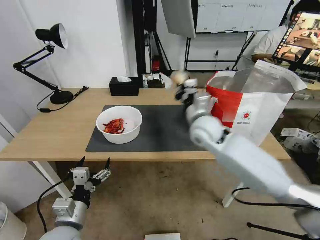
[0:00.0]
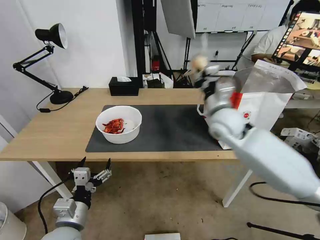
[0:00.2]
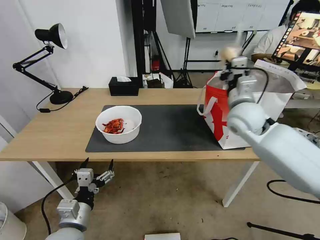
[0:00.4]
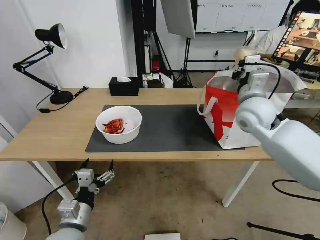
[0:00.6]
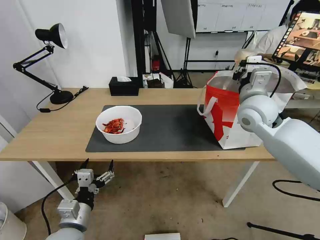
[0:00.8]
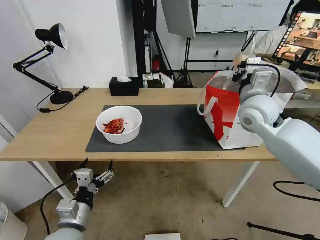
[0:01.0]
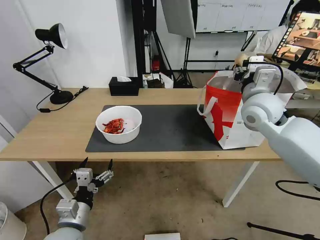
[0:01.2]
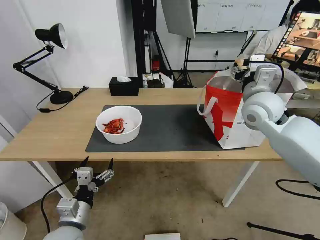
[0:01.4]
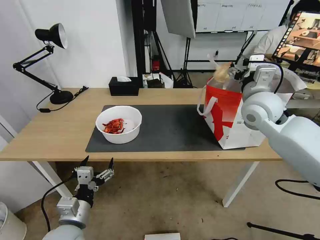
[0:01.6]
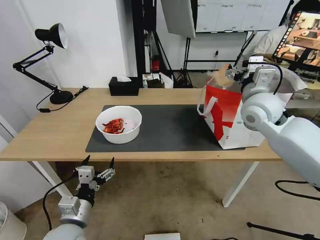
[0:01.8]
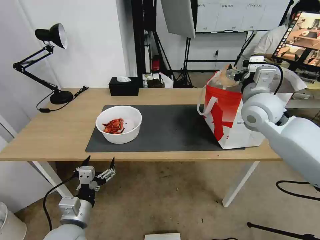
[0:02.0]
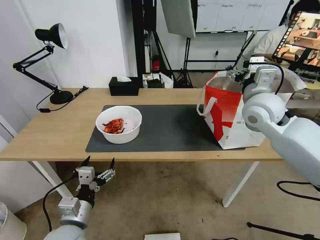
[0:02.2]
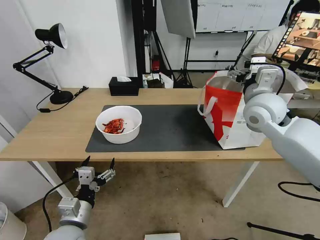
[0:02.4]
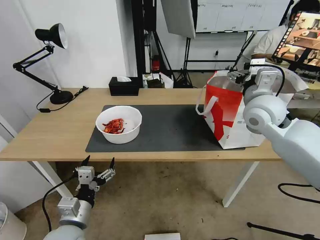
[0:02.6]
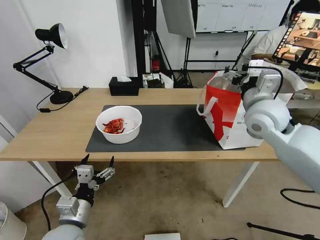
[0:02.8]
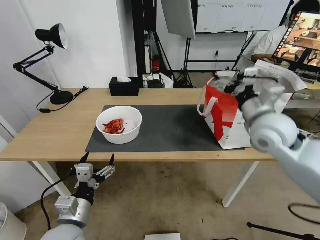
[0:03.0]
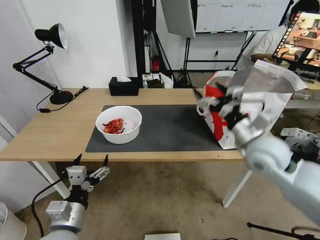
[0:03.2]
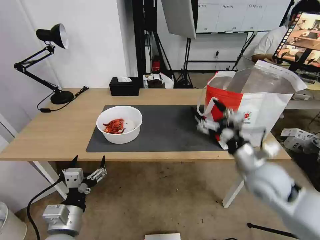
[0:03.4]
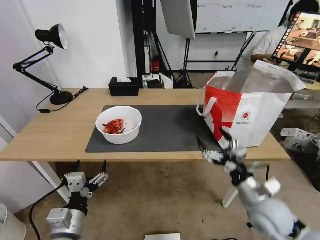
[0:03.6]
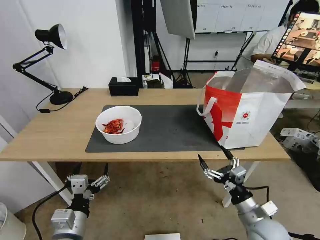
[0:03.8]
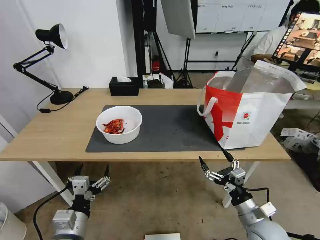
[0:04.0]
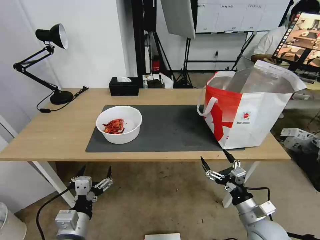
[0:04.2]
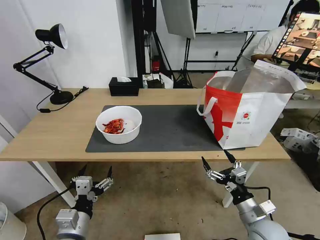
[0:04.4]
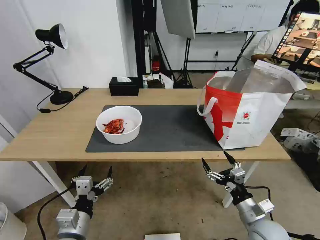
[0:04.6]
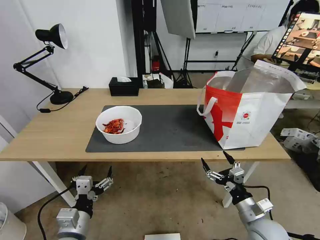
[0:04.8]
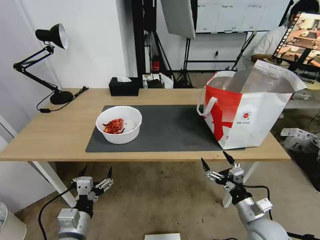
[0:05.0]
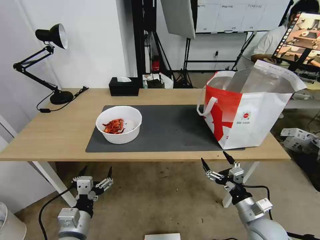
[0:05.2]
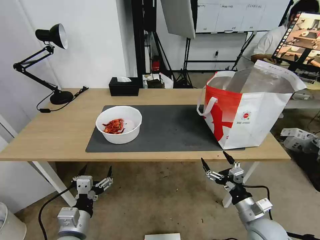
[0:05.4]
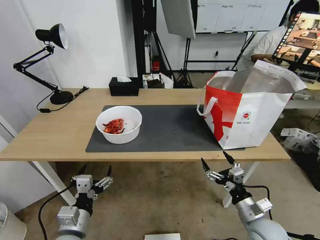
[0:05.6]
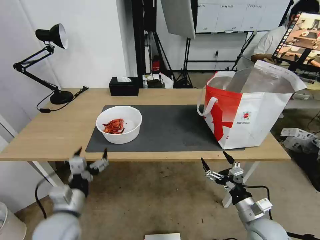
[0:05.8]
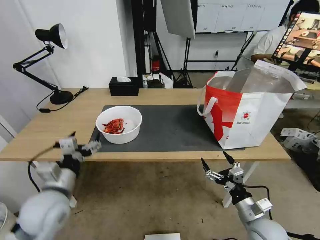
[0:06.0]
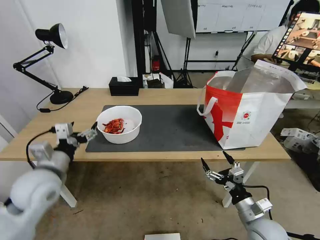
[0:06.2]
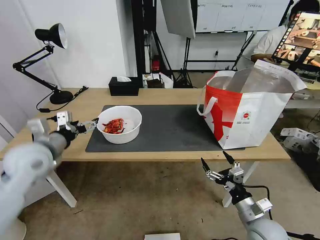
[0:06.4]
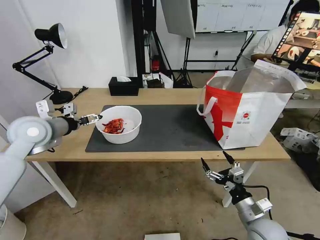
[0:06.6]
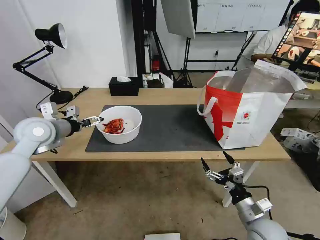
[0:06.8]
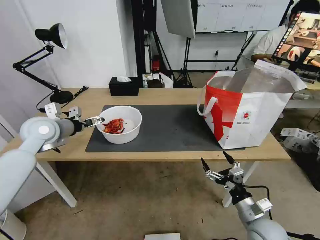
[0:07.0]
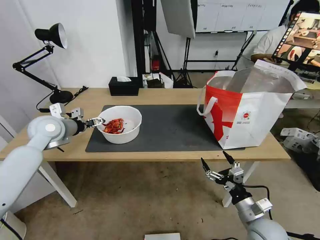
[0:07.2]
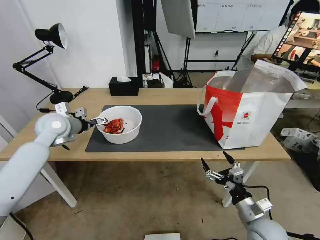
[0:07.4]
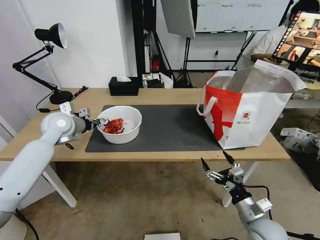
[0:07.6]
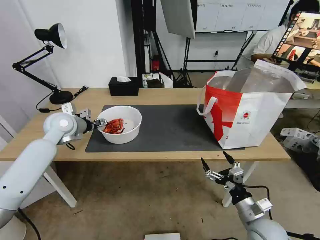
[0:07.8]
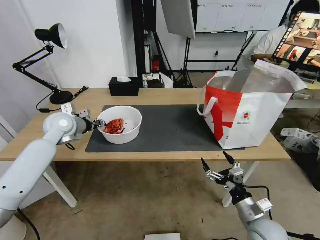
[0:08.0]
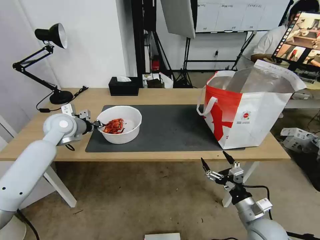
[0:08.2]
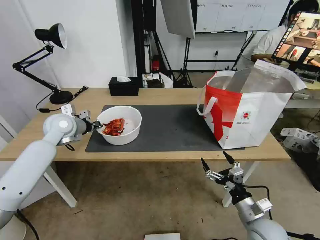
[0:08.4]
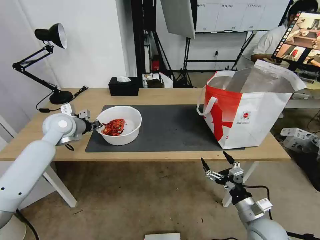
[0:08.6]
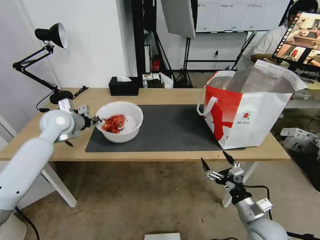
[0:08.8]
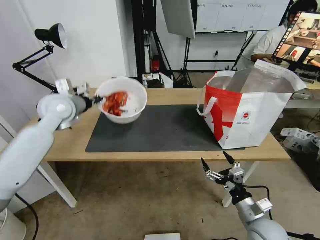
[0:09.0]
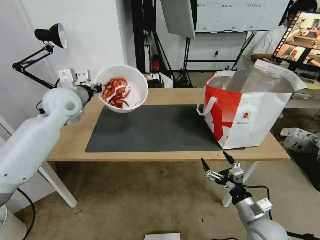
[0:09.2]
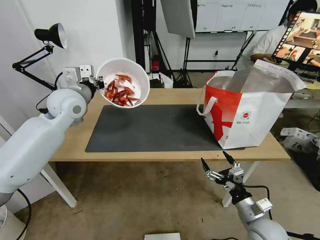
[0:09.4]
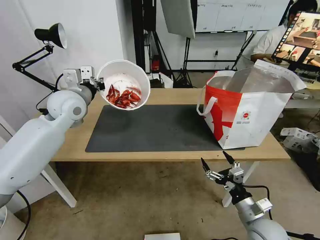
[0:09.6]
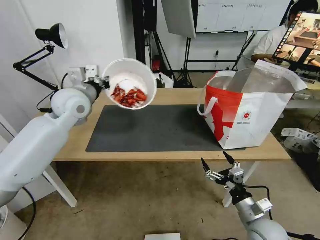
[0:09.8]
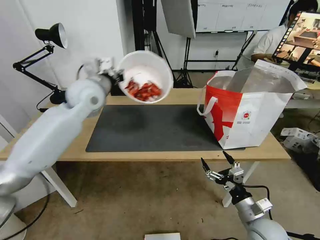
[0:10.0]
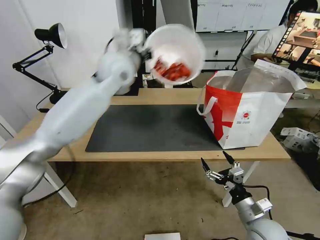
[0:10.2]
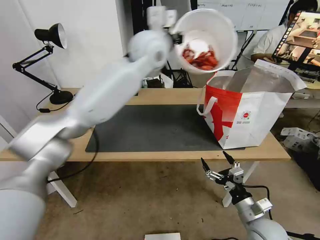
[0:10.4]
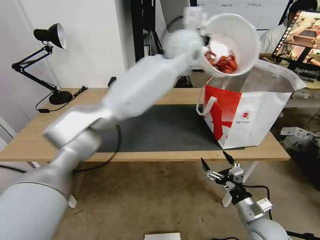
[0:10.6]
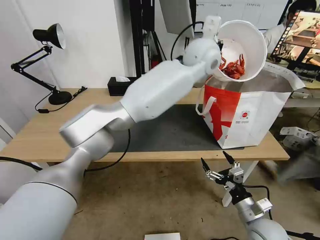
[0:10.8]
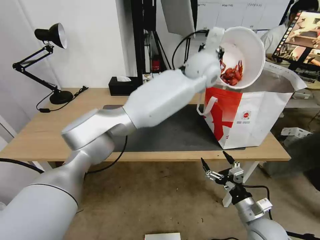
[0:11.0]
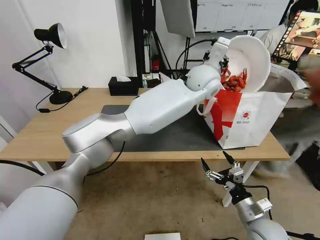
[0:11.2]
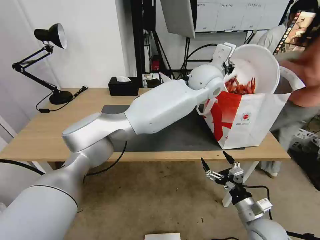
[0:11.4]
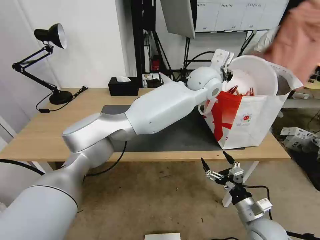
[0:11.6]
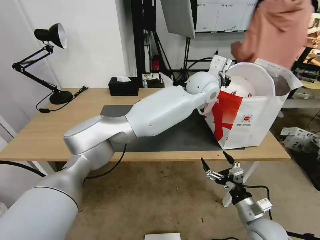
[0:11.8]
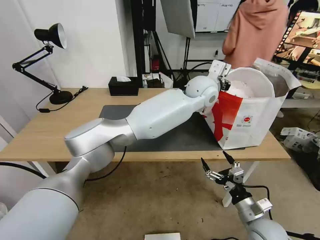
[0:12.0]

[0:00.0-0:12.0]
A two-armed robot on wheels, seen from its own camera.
Task of the whole recording: Pick up the trash from the table and place it into the takeout bag.
0:00.0 to 0:01.6: The right gripper is displaced to the right and upward by approximately 15 cm, and opens.
0:01.6 to 0:03.0: The right gripper moves backward, roughly 5 cm.
0:03.0 to 0:04.4: The right gripper shifts approximately 30 cm downward and backward.
0:04.4 to 0:06.0: The left gripper heads forward and upward, covering roughly 10 cm.
0:06.0 to 0:07.6: The left gripper goes approximately 25 cm forward.
0:07.6 to 0:09.0: The left gripper is displaced upward by some 5 cm, and closes its fingers.
0:09.0 to 0:10.4: The left gripper goes about 30 cm to the right and upward.
0:10.4 to 0:12.0: The left gripper travels to the right and downward by about 20 cm.

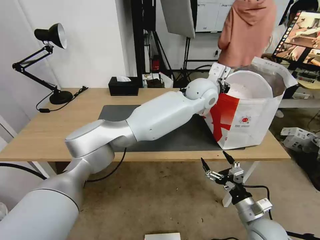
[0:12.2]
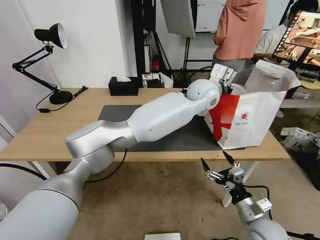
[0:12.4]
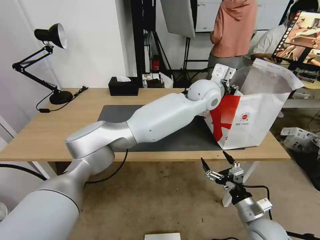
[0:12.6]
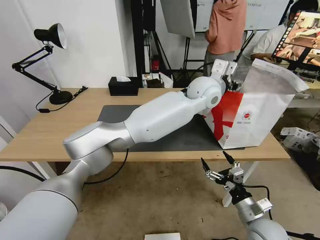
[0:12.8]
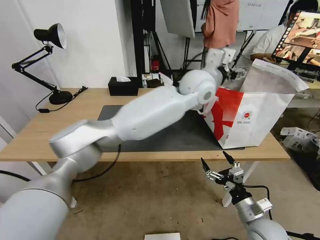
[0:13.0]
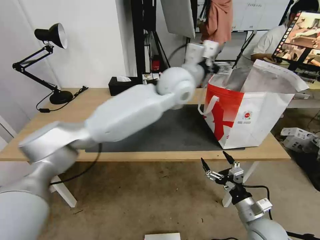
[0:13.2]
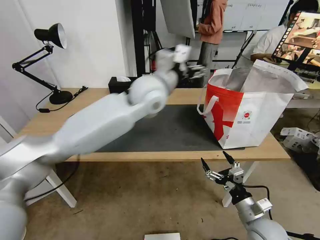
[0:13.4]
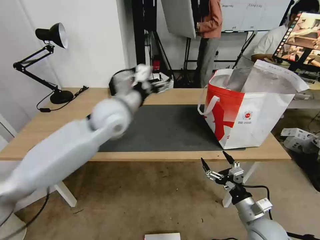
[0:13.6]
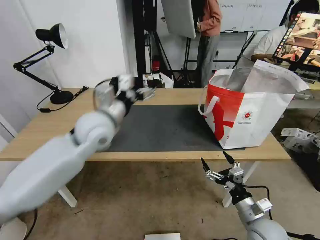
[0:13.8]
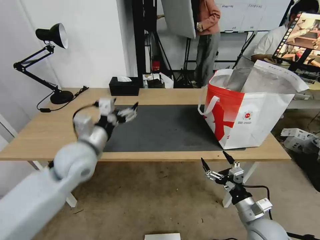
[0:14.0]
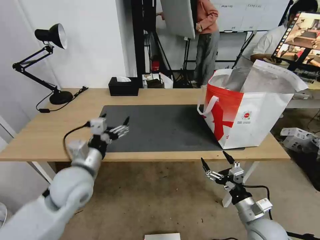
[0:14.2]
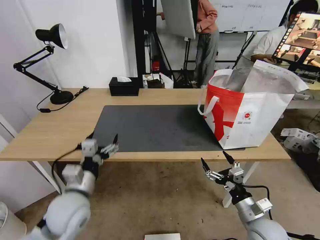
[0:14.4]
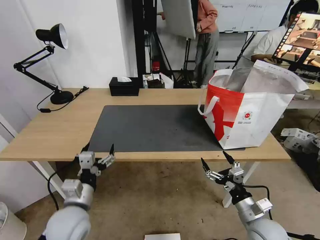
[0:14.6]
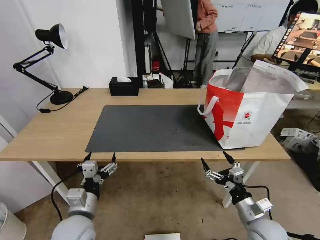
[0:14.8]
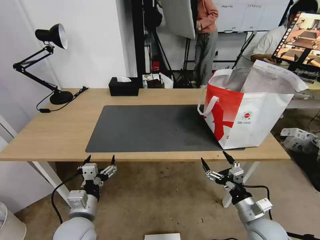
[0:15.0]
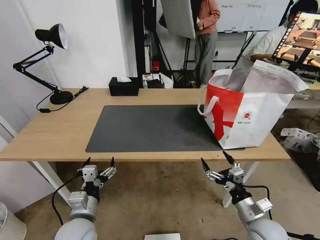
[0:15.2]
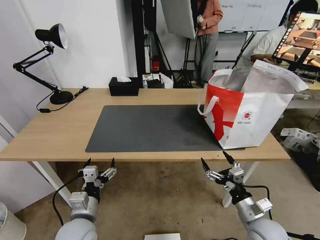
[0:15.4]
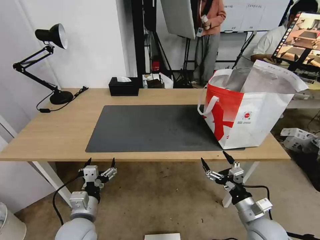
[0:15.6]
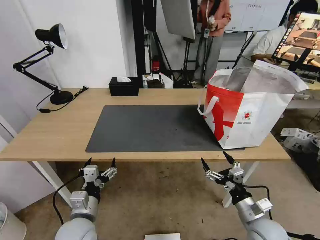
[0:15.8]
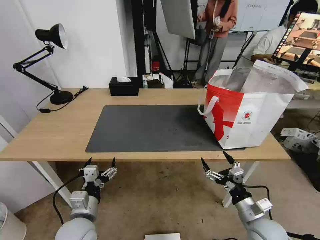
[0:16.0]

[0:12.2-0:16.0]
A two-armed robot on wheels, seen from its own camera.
Task of the whole recording: Pick up the trash from the table and place it into the takeout bag.
0:12.2 to 0:13.4: The left gripper shifts approximately 15 cm to the left and backward, and opens up.
0:13.4 to 0:14.8: The left gripper moves downward, backward and to the left, some 40 cm.
0:14.8 to 0:16.0: The grippers stay close to where they were, moving slightly.

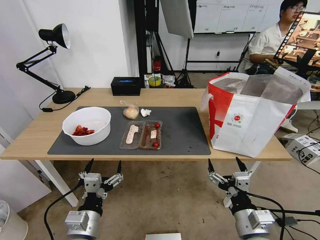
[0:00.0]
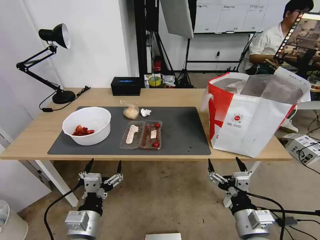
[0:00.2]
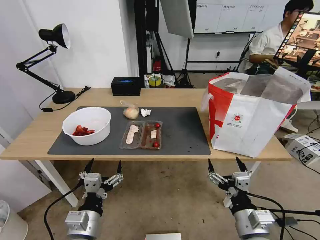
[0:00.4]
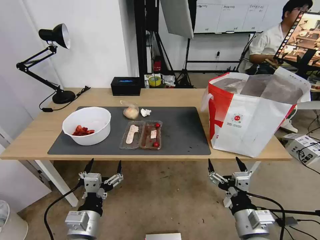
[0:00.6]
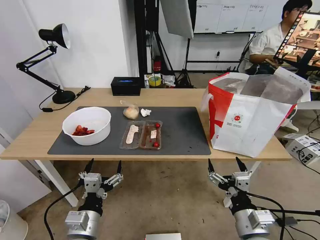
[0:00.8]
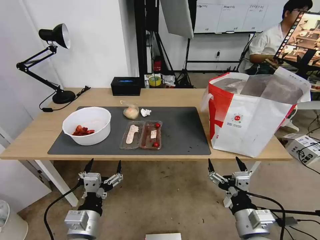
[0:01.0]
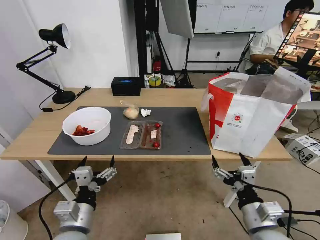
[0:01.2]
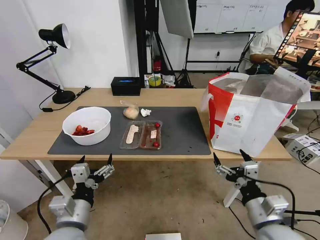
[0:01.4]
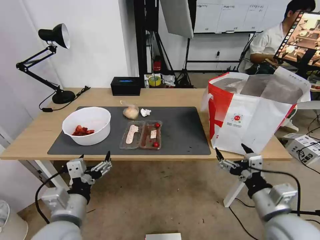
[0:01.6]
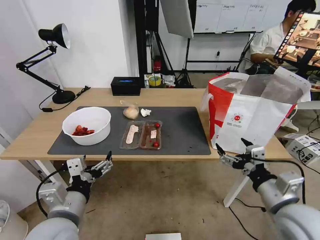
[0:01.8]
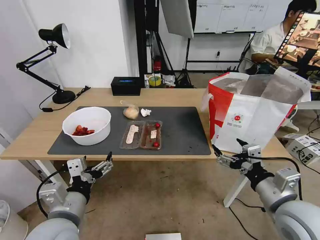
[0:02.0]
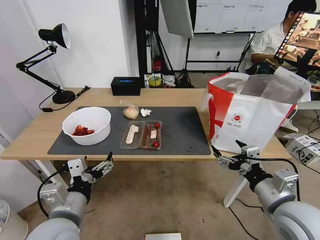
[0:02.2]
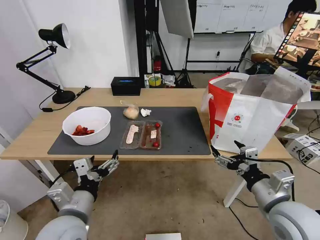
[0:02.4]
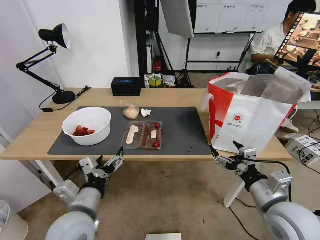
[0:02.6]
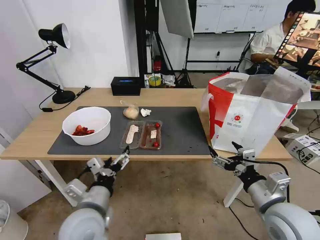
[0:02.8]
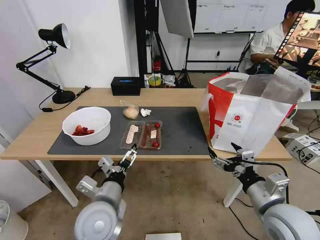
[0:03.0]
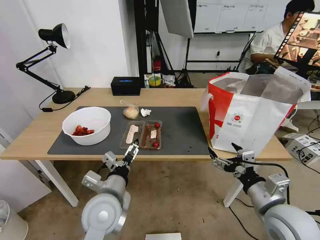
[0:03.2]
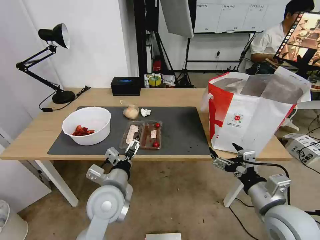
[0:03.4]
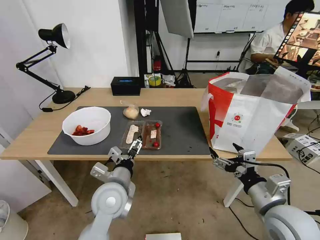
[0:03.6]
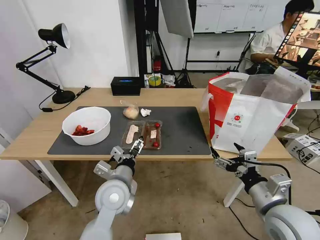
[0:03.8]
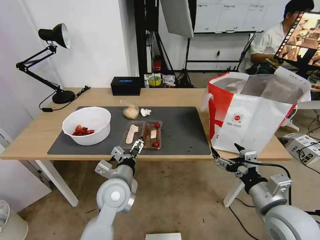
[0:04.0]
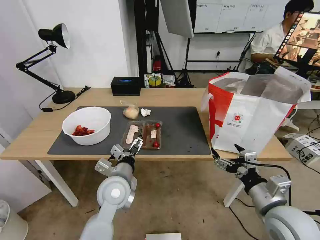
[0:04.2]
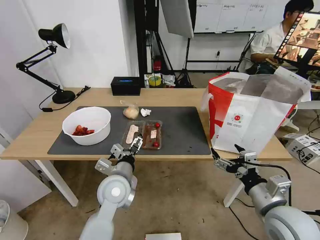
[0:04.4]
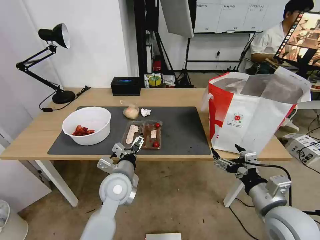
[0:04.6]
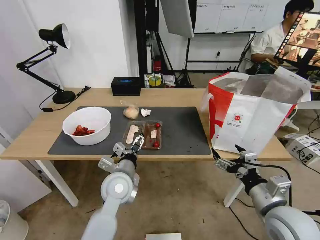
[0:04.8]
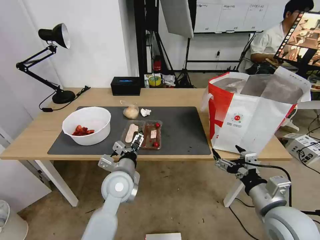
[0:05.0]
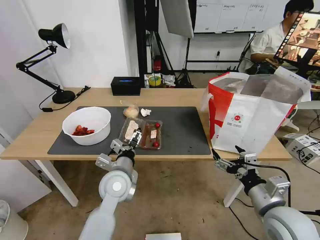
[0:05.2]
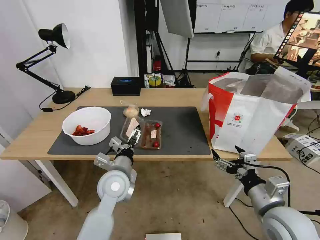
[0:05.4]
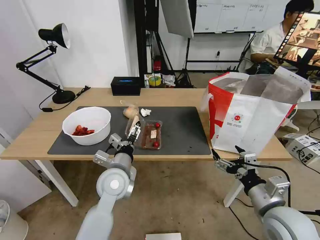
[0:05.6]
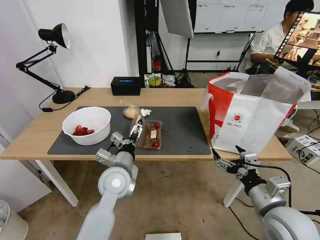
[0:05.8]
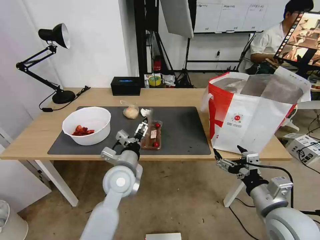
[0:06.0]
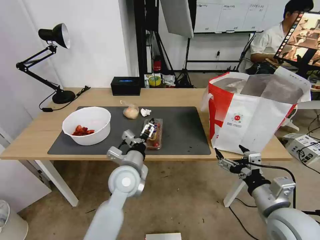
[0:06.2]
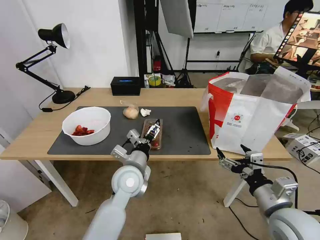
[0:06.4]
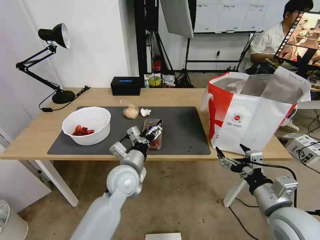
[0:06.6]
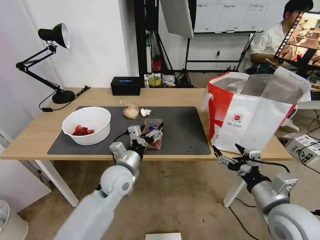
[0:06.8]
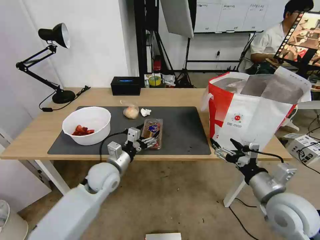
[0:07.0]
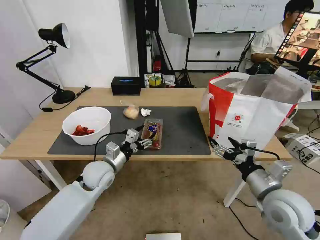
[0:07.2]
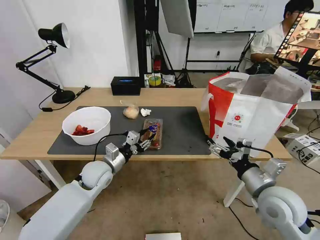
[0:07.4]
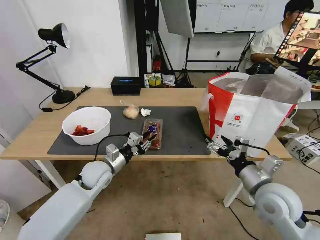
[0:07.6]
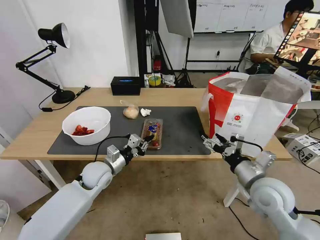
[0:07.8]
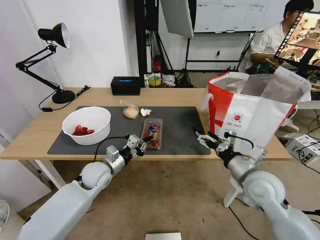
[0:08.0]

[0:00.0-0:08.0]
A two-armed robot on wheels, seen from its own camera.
Task of the whole recording: Pick up the trash from the table and place it into the takeout bag.
0:01.6 to 0:03.2: The left gripper is displaced to the right and forward by roughly 10 cm.
0:03.2 to 0:04.8: The left gripper goes some 10 cm forward.
0:04.8 to 0:06.4: There are only small adjustments of the grippers.
0:06.4 to 0:08.0: The right gripper goes approximately 10 cm forward; the left gripper moves to the left, downward and forward, roughly 15 cm, and closes.
